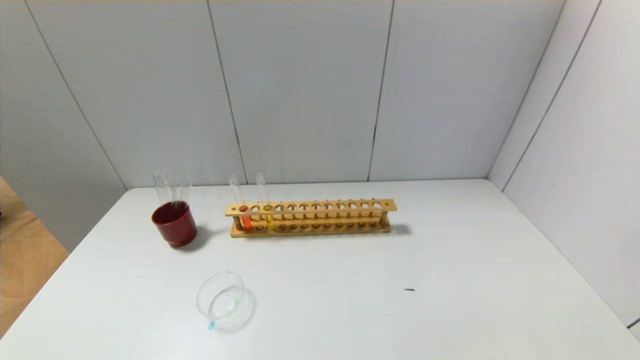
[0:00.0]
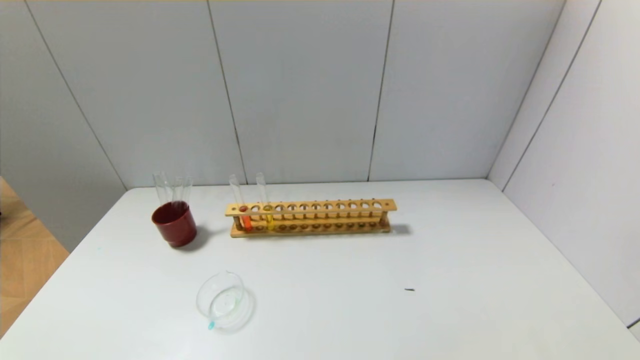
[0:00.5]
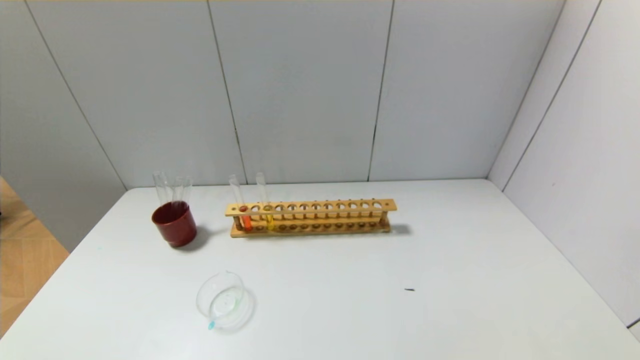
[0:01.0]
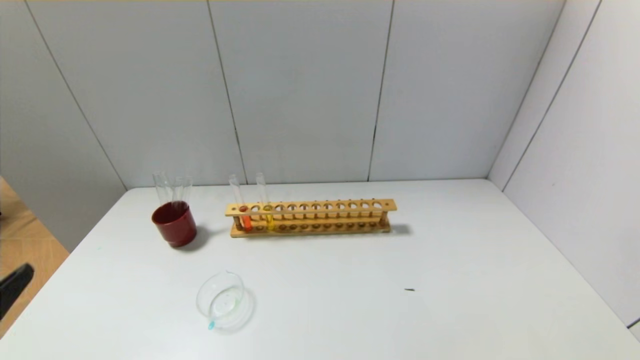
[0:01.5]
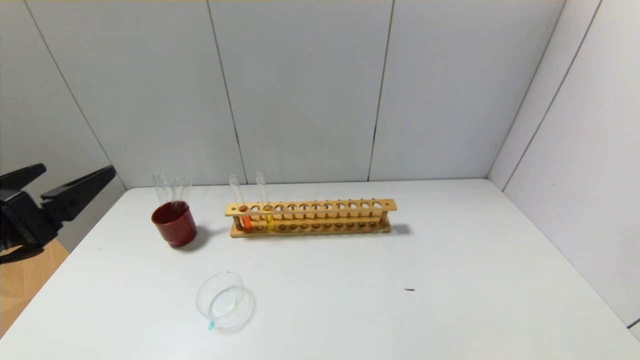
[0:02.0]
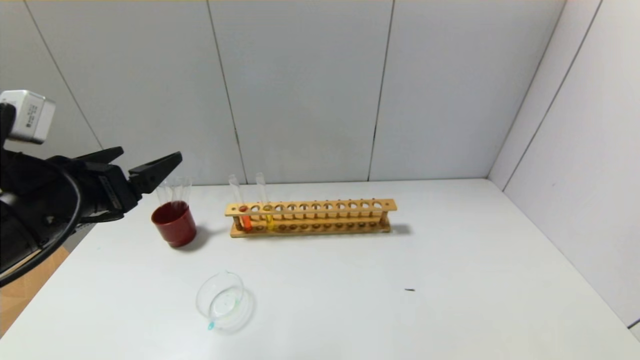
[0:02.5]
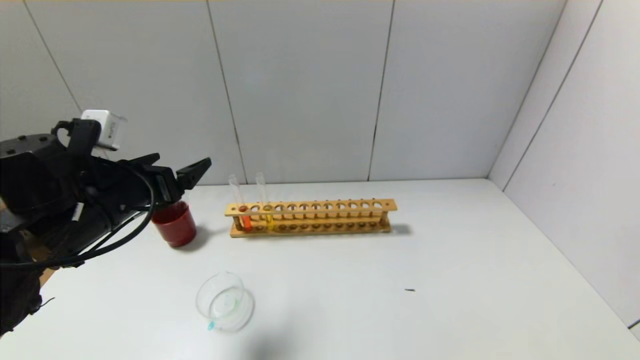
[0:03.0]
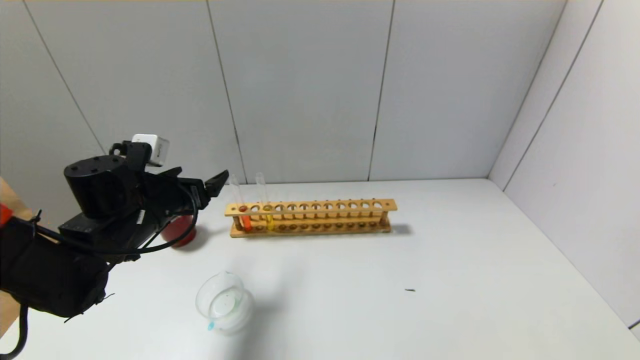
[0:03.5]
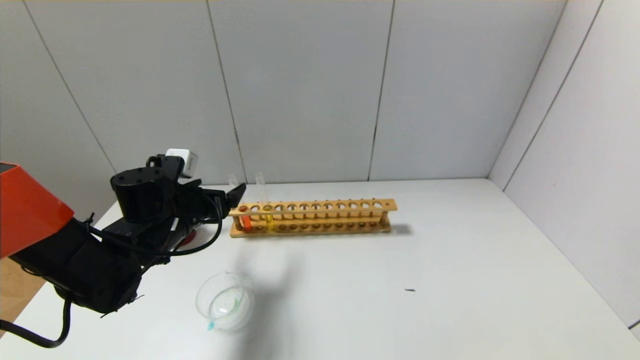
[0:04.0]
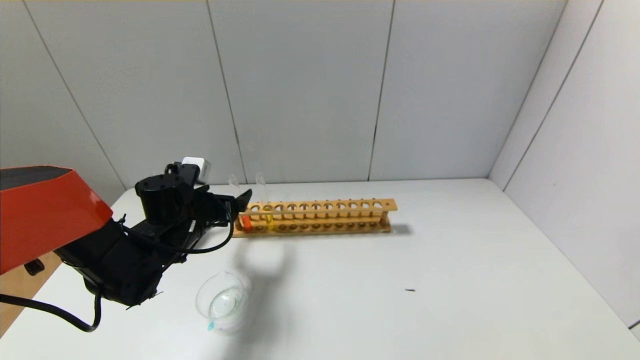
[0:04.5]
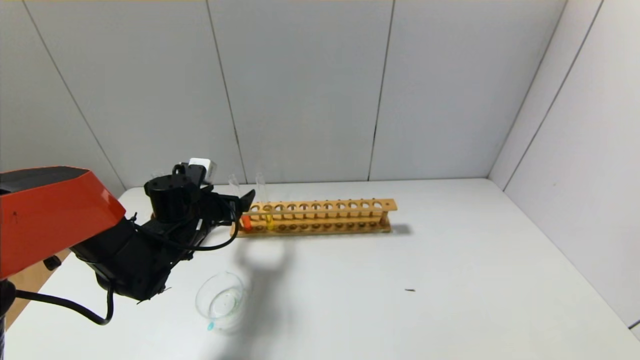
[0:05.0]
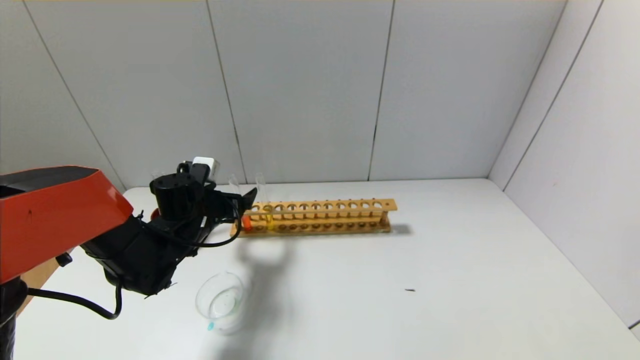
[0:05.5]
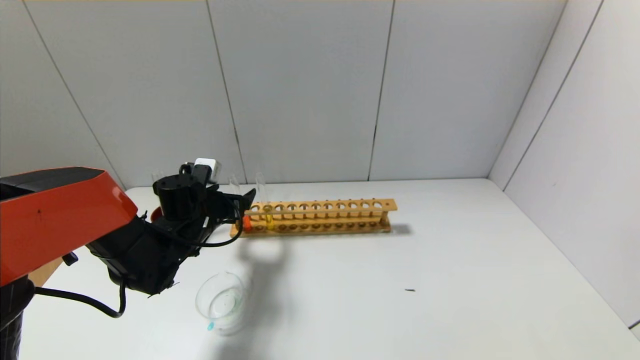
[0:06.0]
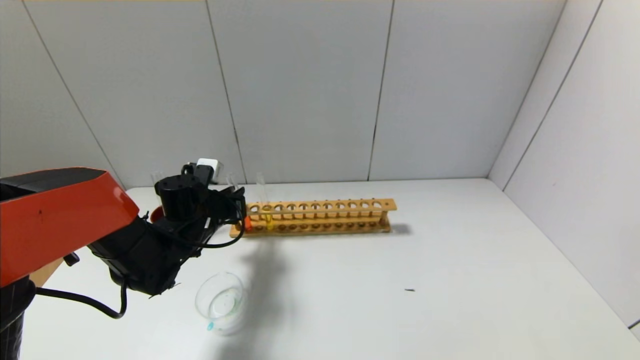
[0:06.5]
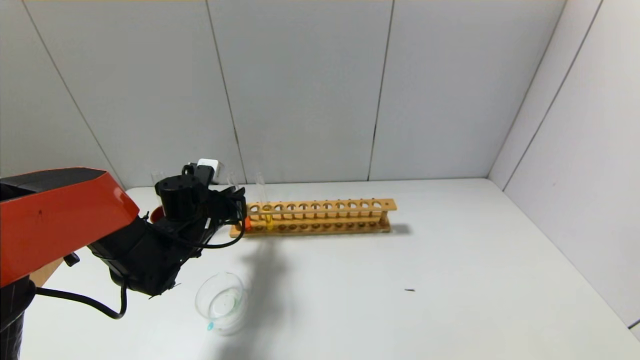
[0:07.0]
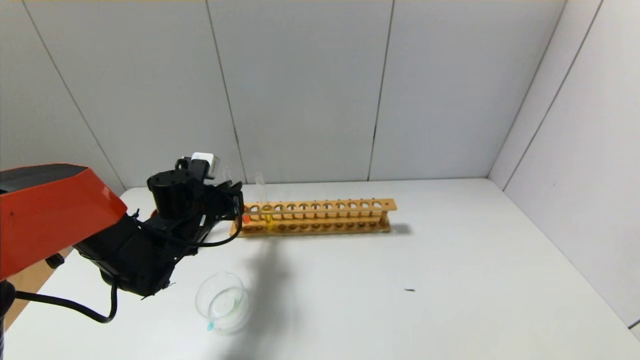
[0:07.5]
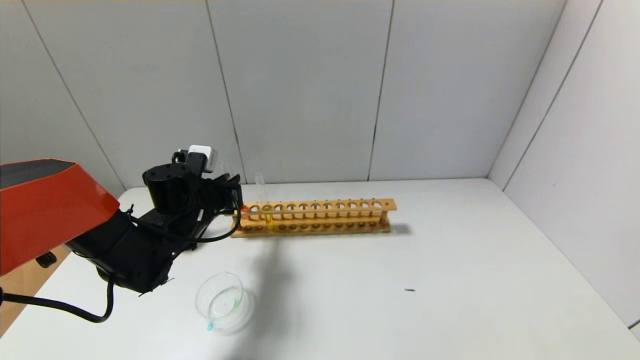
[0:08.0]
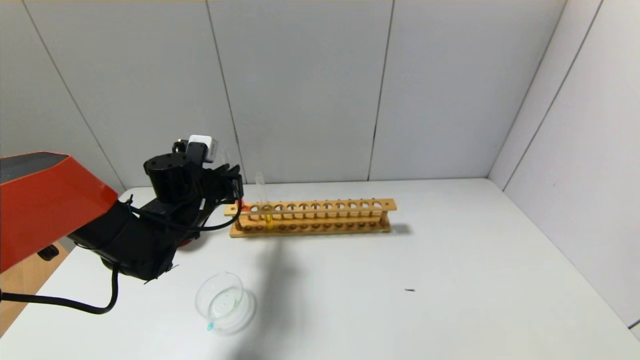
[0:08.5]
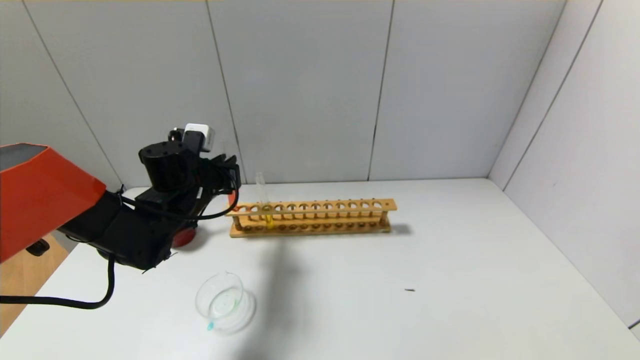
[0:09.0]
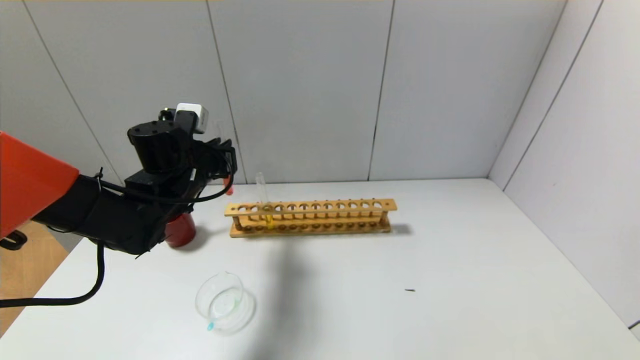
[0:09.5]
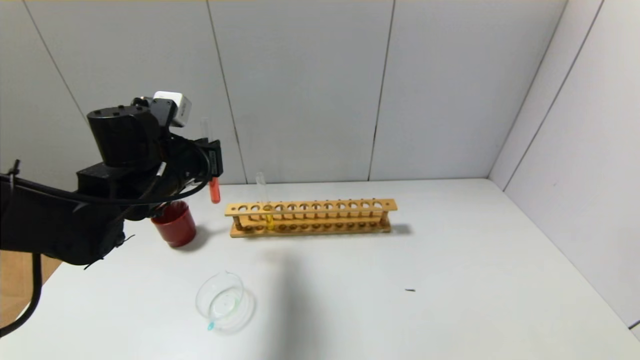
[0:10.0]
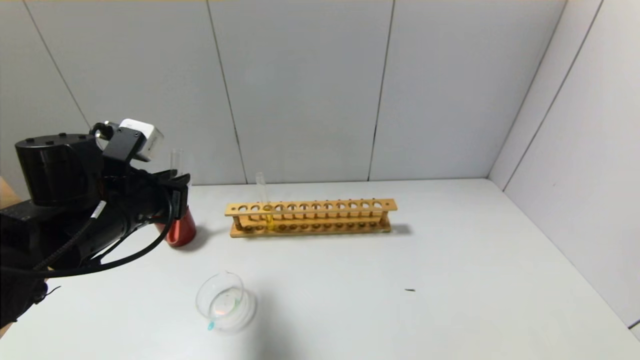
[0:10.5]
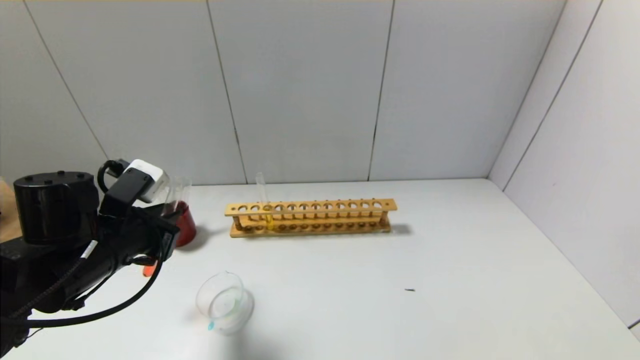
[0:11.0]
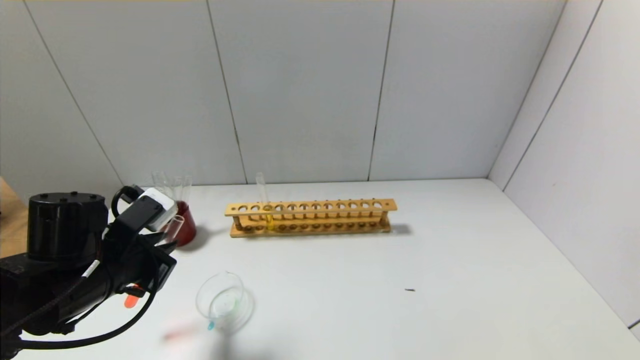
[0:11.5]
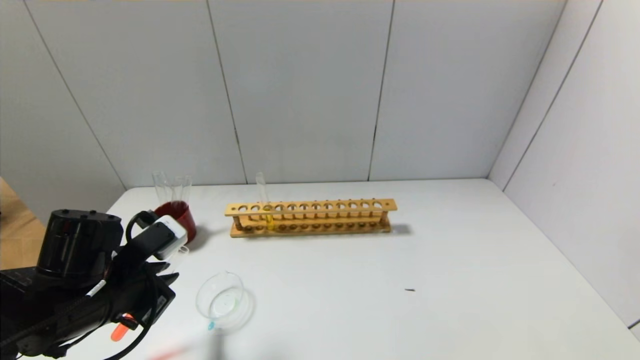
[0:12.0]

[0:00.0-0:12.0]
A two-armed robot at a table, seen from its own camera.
Step, 0:00.0 to 0:06.5: Grasp the red reagent with the left gripper.
0:00.0 to 0:02.0: The left gripper shifts about 20 cm upward and forward.
0:02.0 to 0:04.0: The left gripper heads forward and downward, covering about 20 cm.
0:04.0 to 0:06.0: The left gripper moves approximately 5 cm.
0:06.0 to 0:08.0: The left gripper closes.
0:08.0 to 0:10.0: The left gripper shifts some 10 cm upward.
0:10.0 to 0:12.0: The left gripper is displaced backward and downward by about 15 cm.

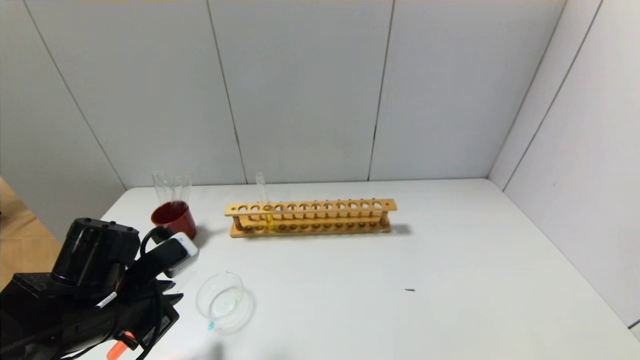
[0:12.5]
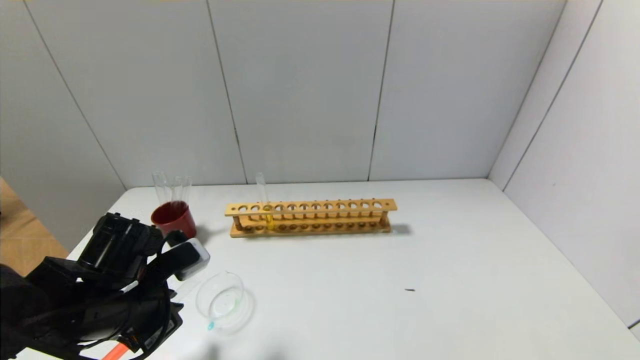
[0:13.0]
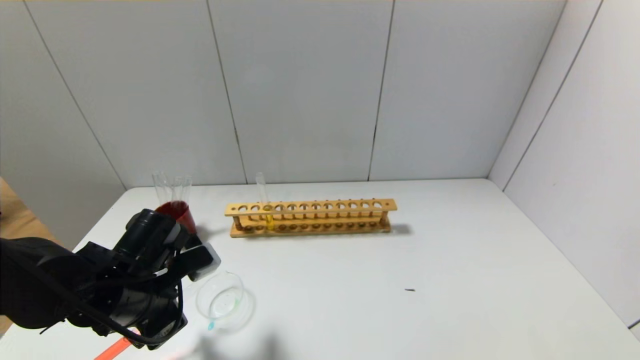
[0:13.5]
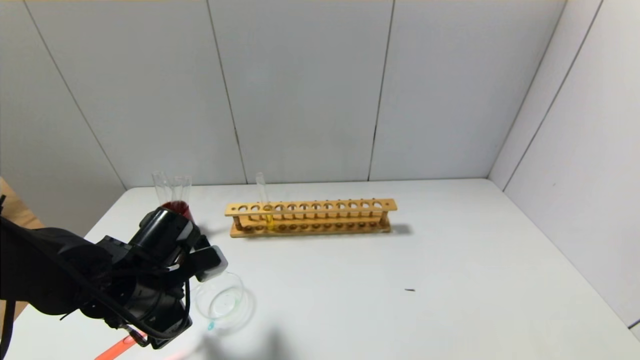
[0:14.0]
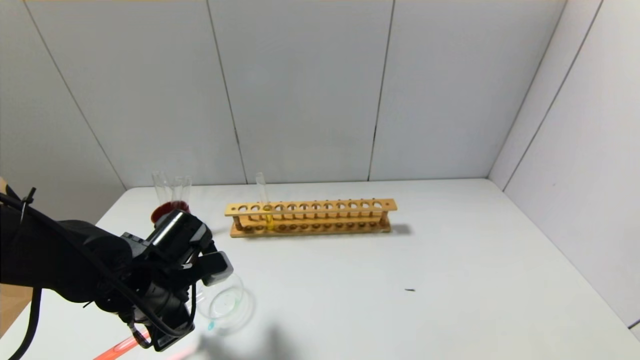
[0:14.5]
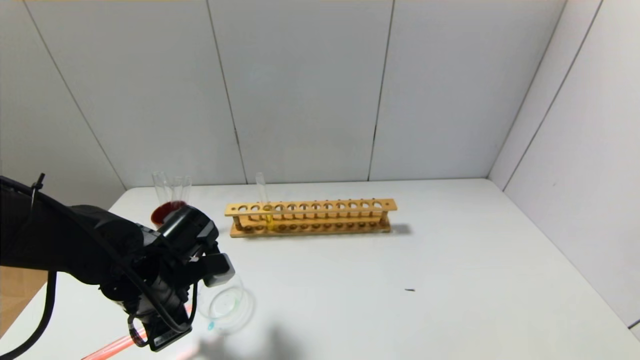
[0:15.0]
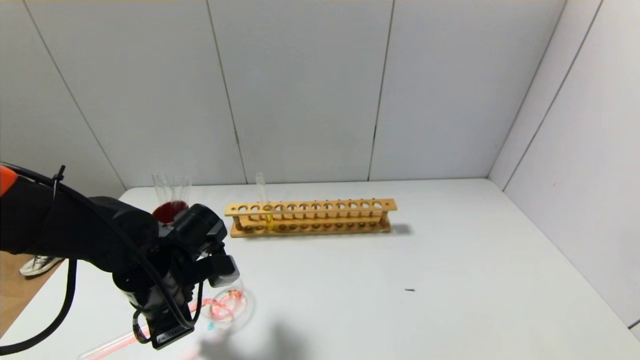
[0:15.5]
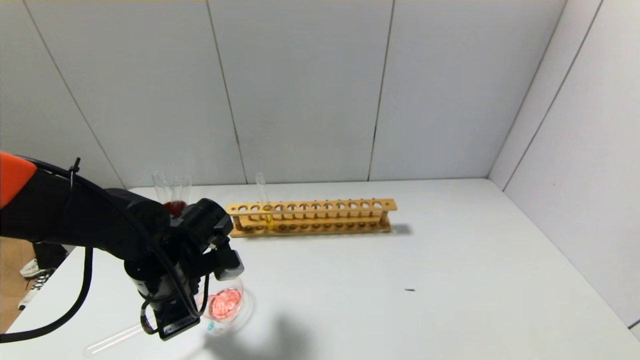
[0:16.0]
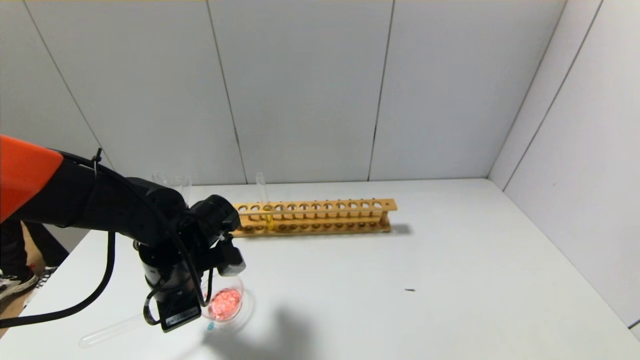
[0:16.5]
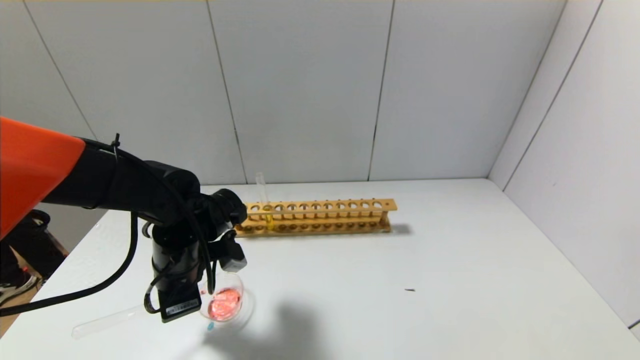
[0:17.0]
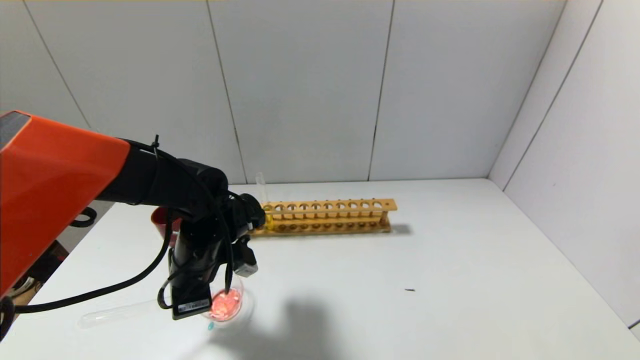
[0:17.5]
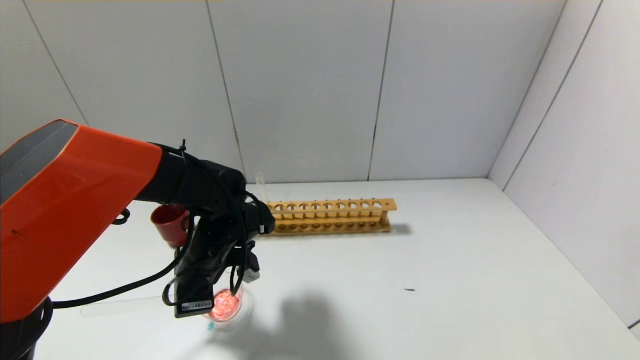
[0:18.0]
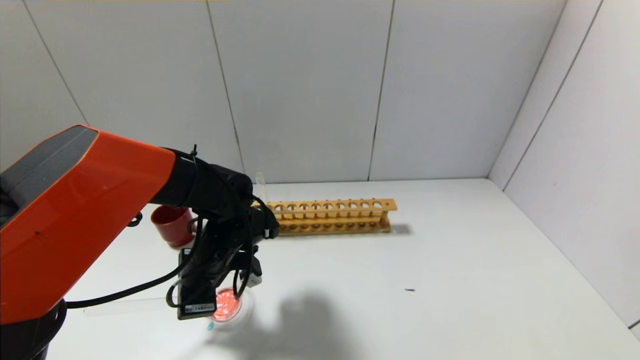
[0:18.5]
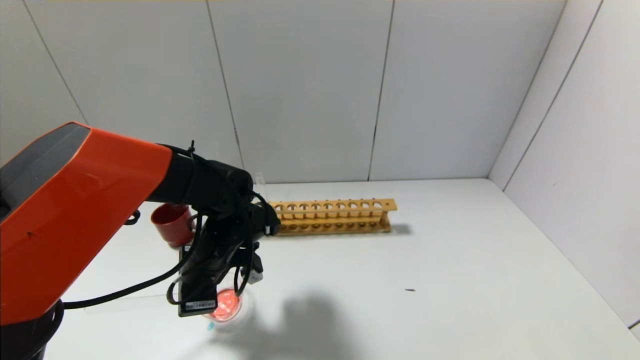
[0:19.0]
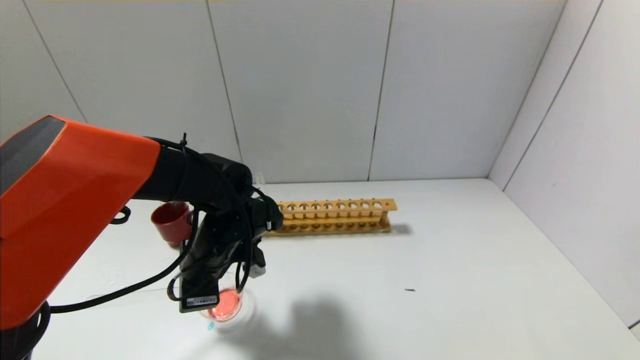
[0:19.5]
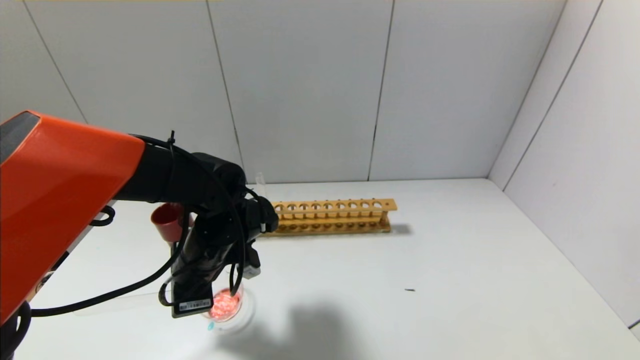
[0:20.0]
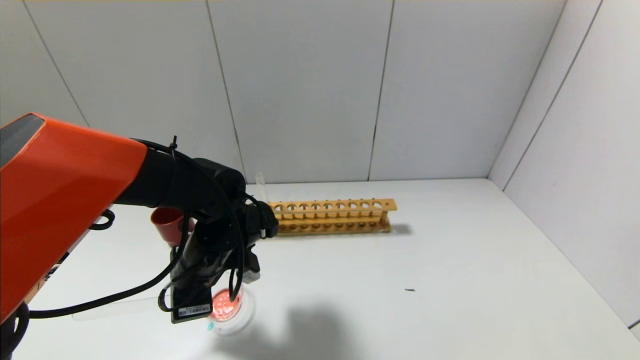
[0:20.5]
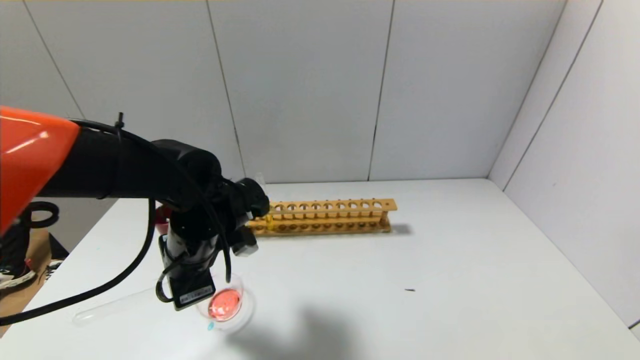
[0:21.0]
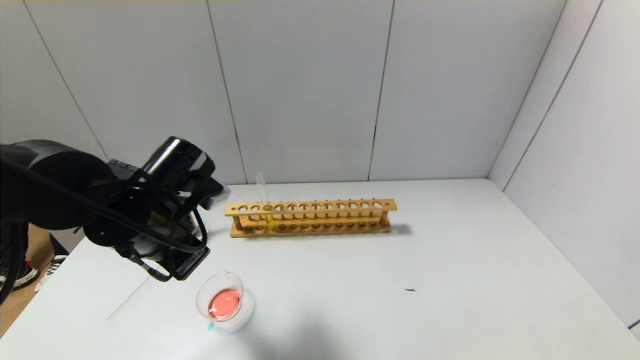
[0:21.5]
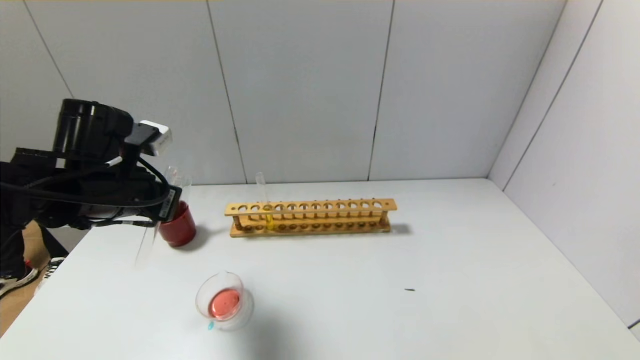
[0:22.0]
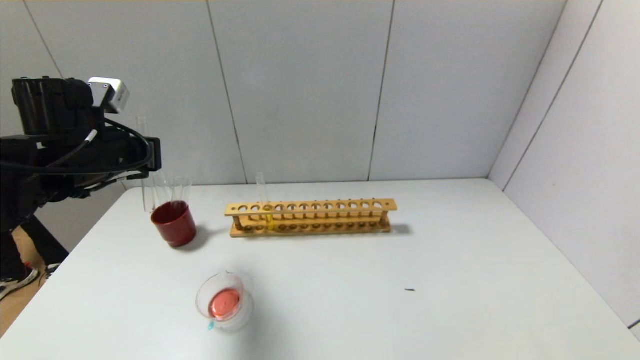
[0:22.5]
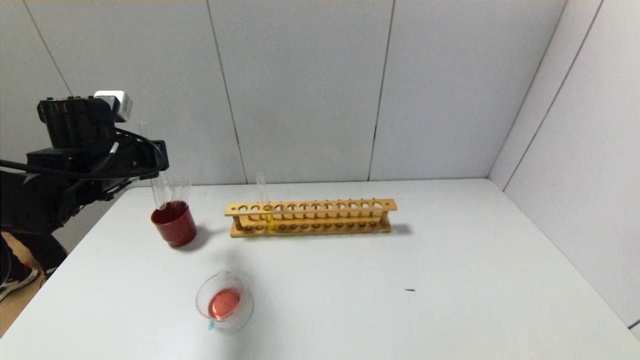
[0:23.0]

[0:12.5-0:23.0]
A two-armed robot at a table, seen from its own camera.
Step, 0:12.5 to 0:21.0: Pour the red reagent into the graduated cylinder with the left gripper.
0:12.5 to 0:14.5: The left gripper shifts by about 5 cm.
0:14.5 to 0:16.5: There are only small adjustments of the grippers.
0:16.5 to 0:19.0: The left gripper moves roughly 5 cm.
0:19.0 to 0:21.0: The left gripper changes place by about 5 cm.
0:21.0 to 0:23.0: The left gripper moves to the left, forward and upward, some 15 cm.
